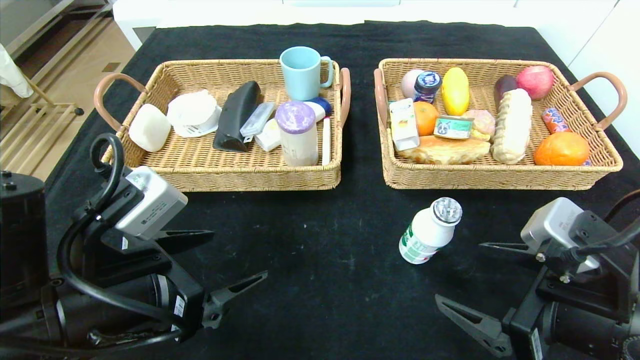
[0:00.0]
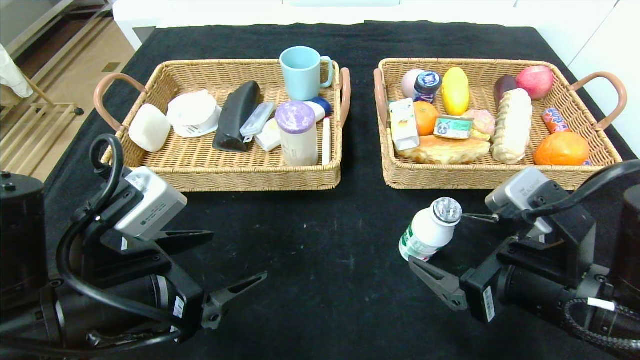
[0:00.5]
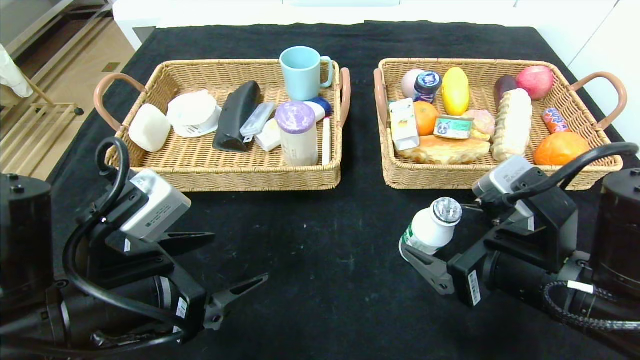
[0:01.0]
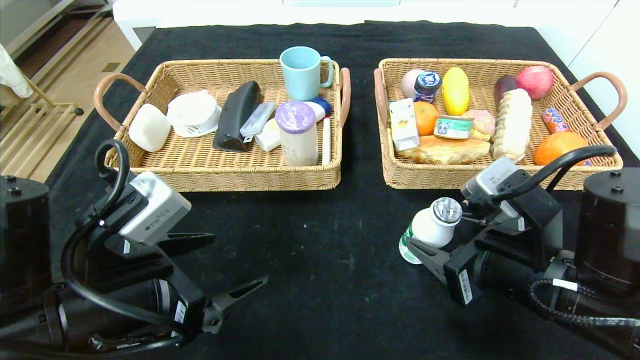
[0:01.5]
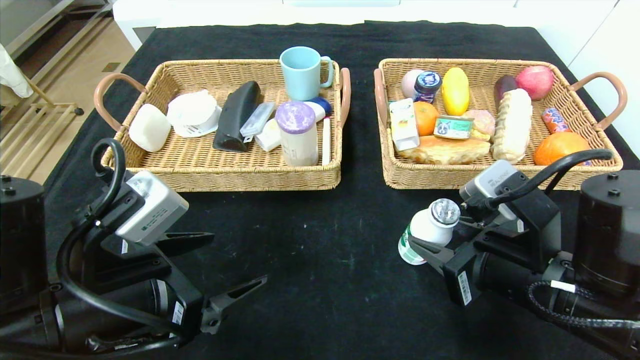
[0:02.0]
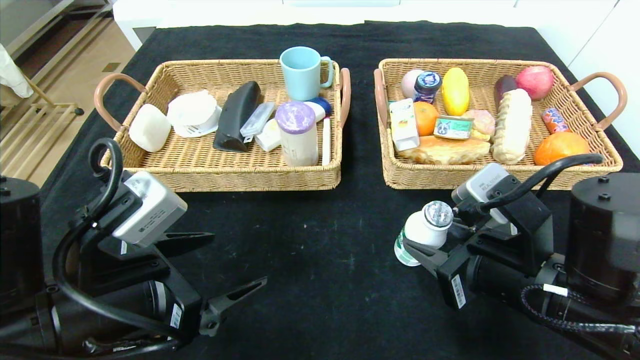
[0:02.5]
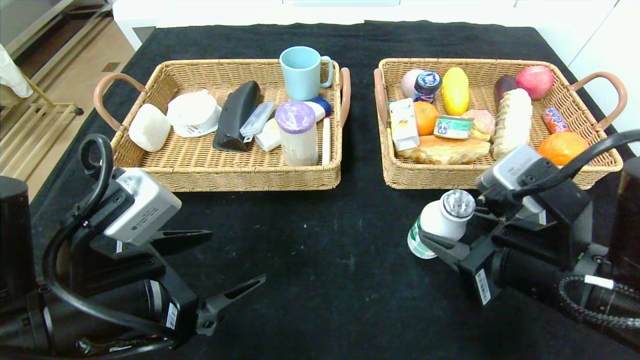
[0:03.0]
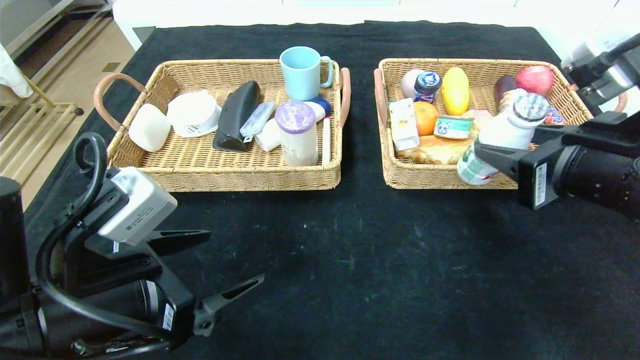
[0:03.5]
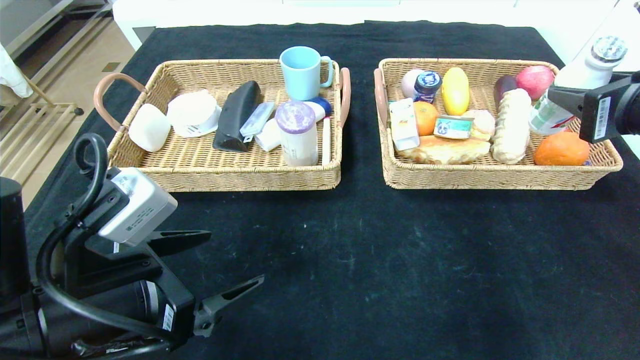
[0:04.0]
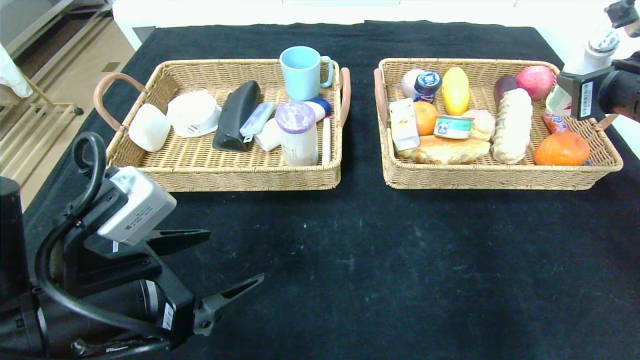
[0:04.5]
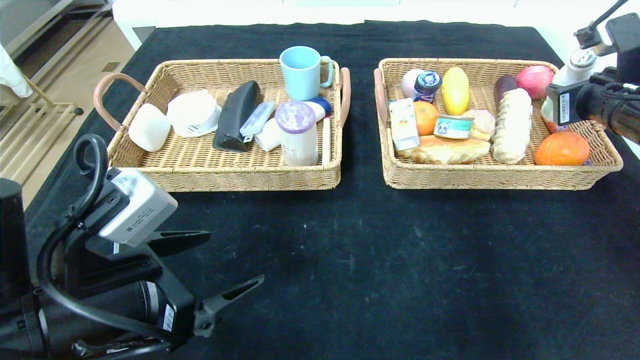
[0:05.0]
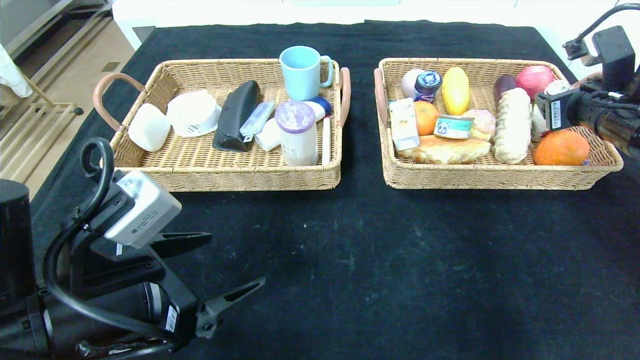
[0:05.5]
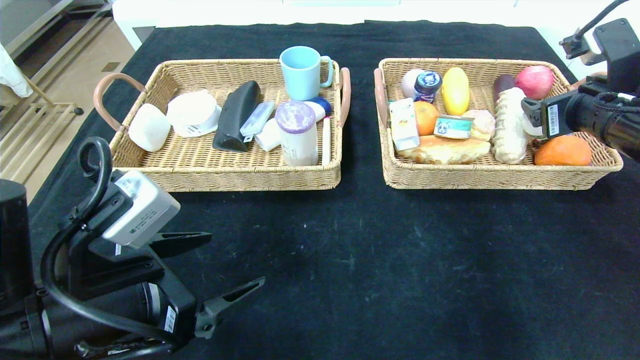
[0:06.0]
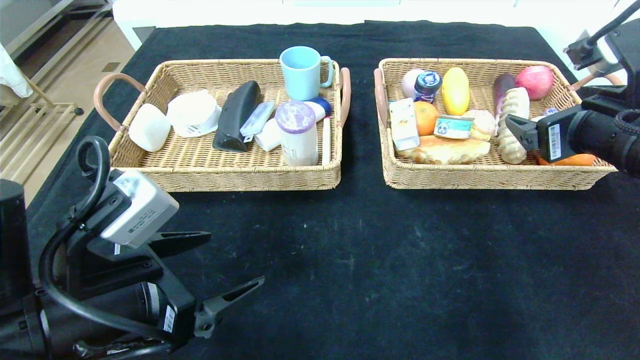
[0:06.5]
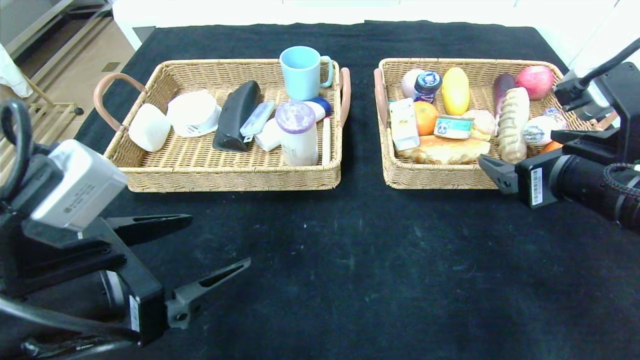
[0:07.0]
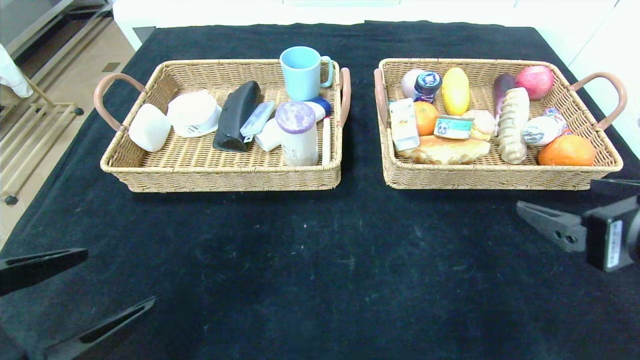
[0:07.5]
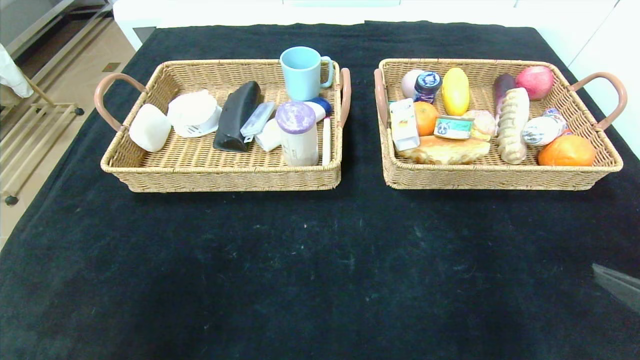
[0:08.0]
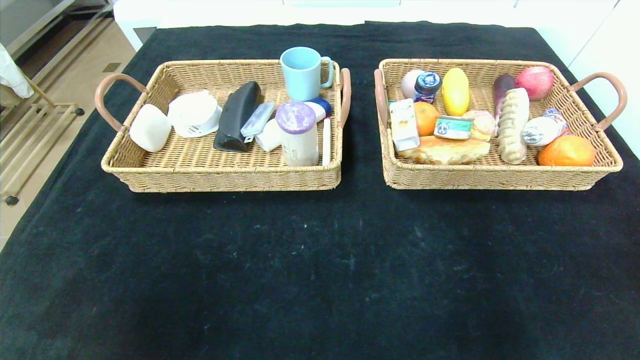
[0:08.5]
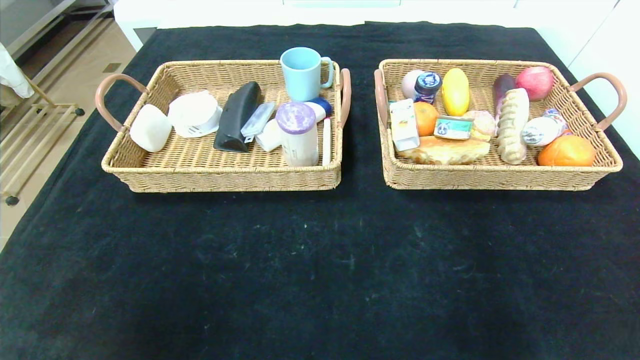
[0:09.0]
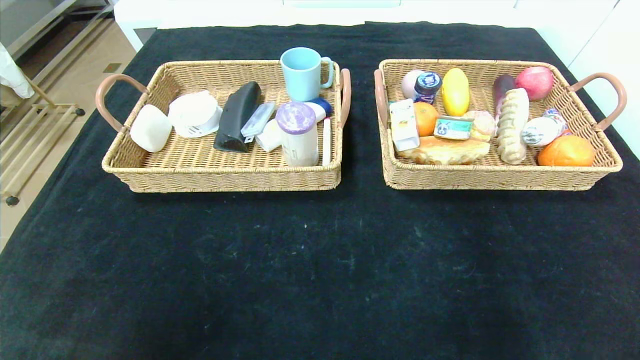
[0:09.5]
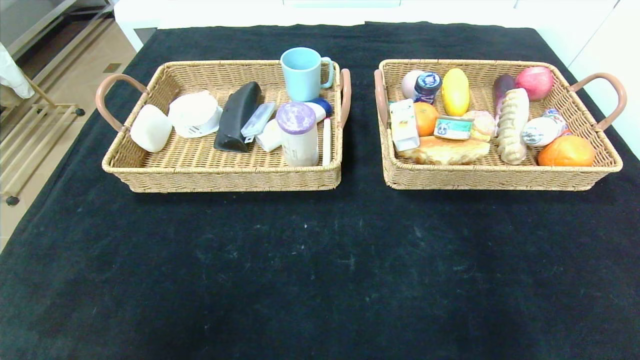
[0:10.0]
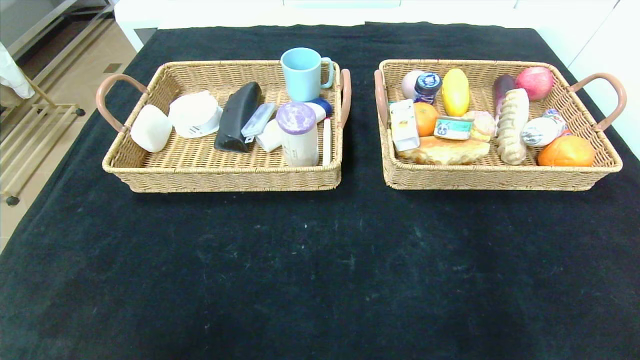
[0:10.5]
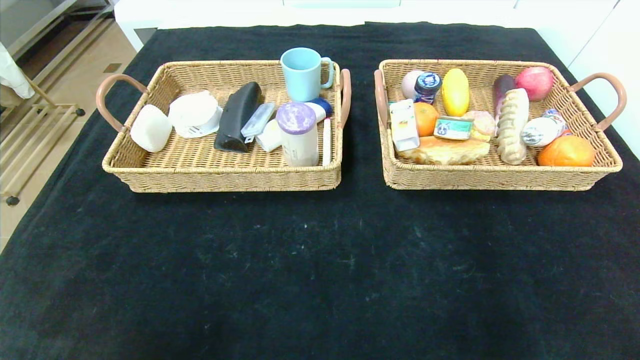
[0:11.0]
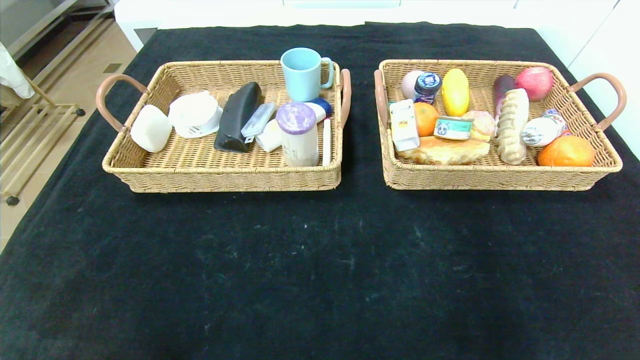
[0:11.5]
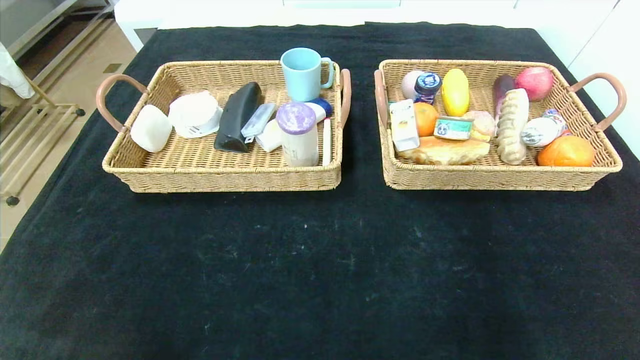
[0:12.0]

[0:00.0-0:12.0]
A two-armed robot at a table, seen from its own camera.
Step, 0:00.0 to 0:05.5: Grasp the ad milk and put it in the right basket.
0:00.0 to 0:02.0: The right gripper changes place by approximately 5 cm, and closes.
0:02.0 to 0:04.0: The right gripper heads upward and to the right, covering approximately 15 cm.
0:04.0 to 0:06.0: The right gripper travels forward by about 5 cm, and opens up.
0:06.0 to 0:08.0: The left gripper is displaced backward and to the left by about 15 cm. The right gripper travels backward by some 20 cm.
0:08.0 to 0:10.0: The right gripper goes roughly 15 cm backward and downward; the left gripper shifts approximately 10 cm backward.
